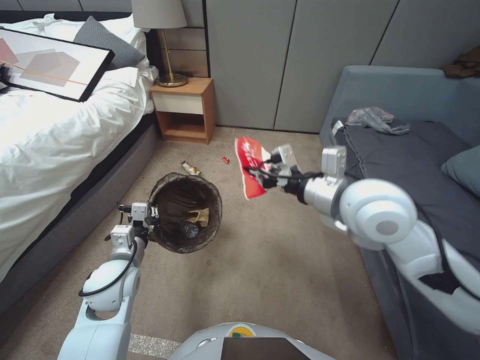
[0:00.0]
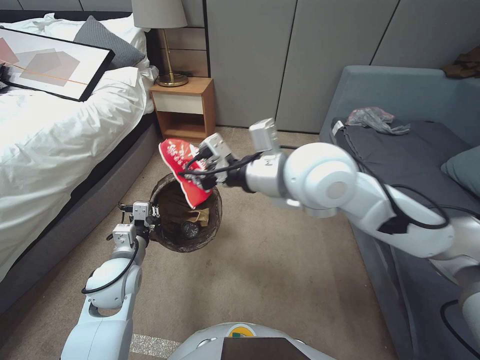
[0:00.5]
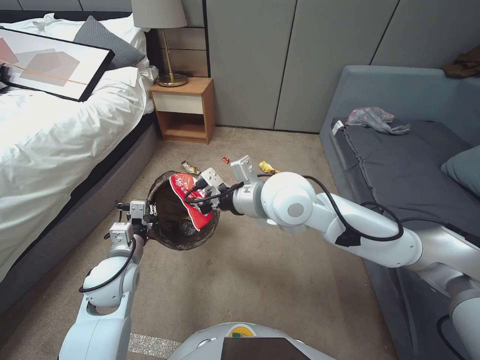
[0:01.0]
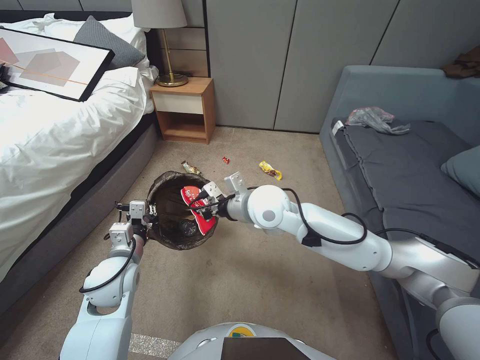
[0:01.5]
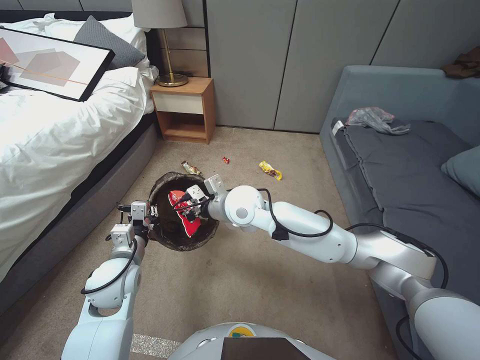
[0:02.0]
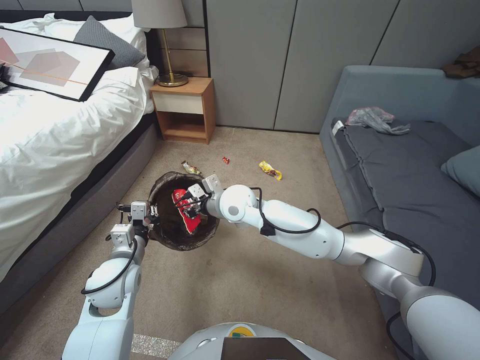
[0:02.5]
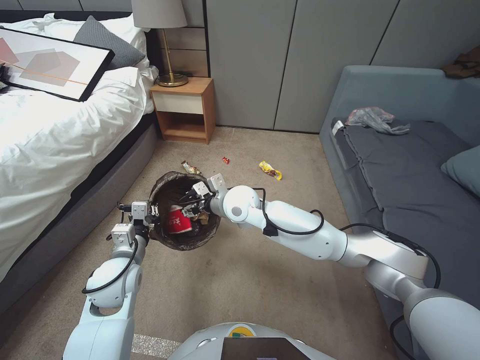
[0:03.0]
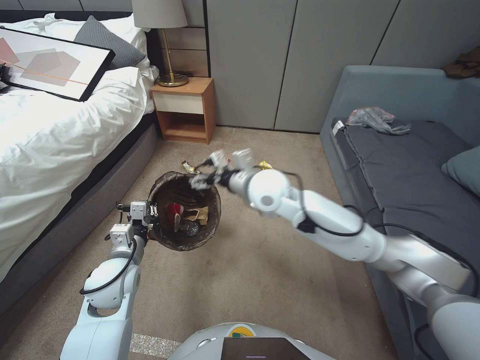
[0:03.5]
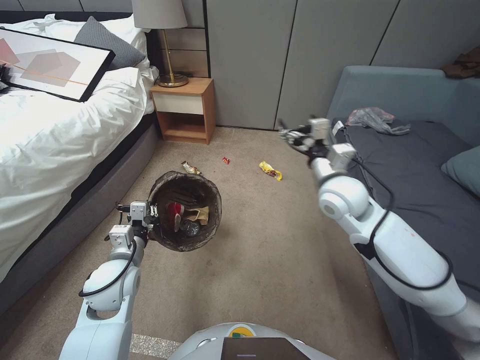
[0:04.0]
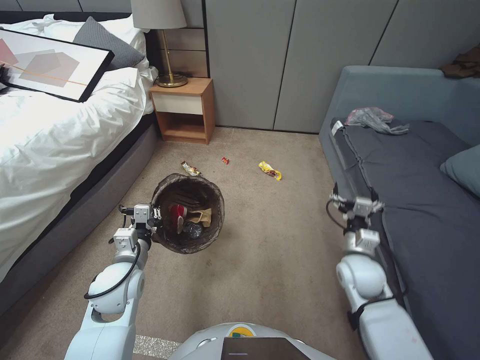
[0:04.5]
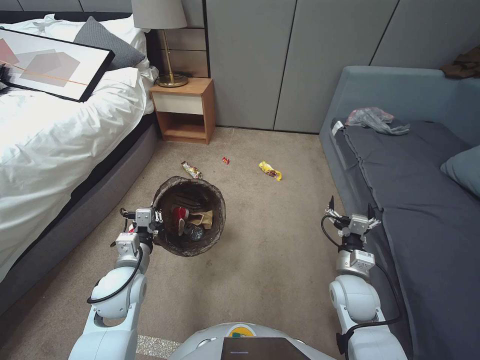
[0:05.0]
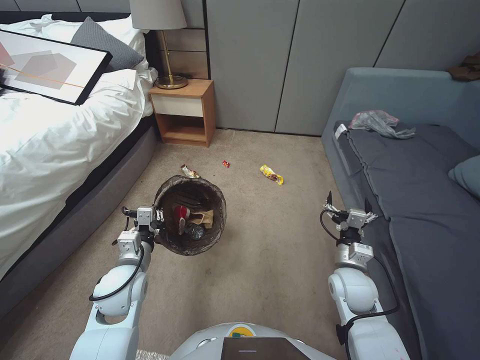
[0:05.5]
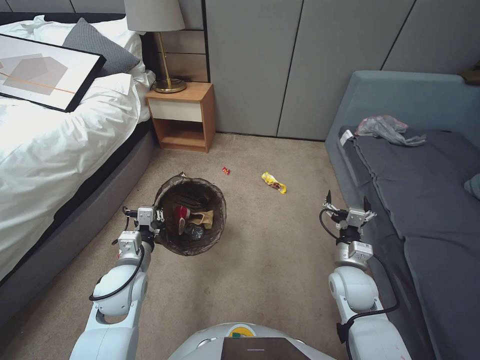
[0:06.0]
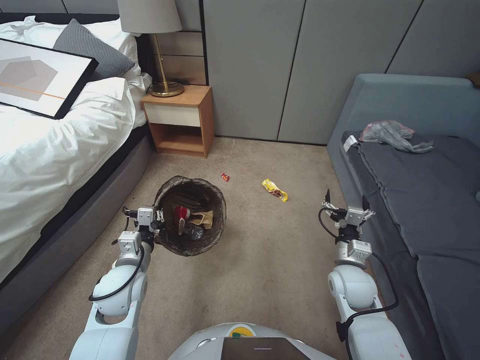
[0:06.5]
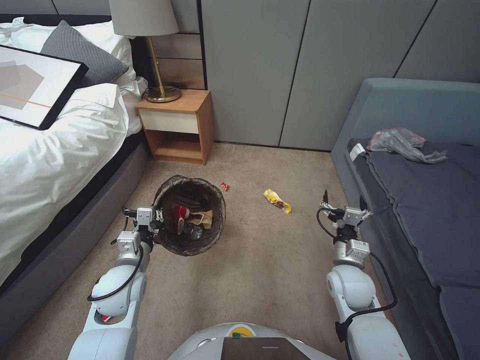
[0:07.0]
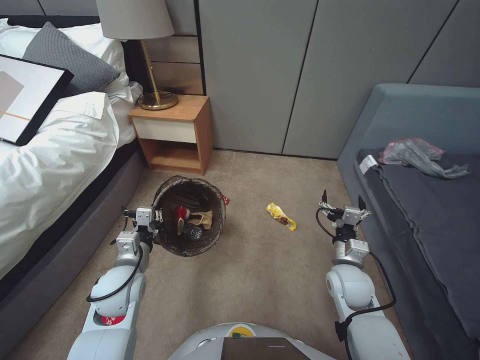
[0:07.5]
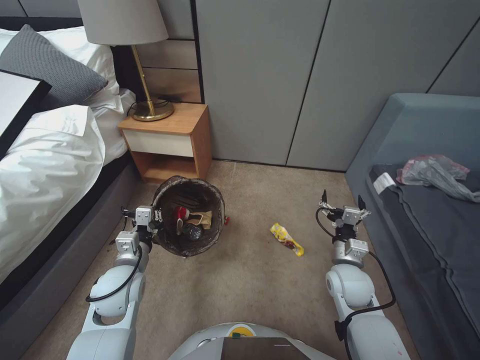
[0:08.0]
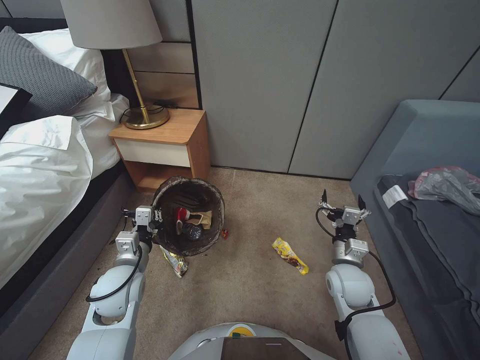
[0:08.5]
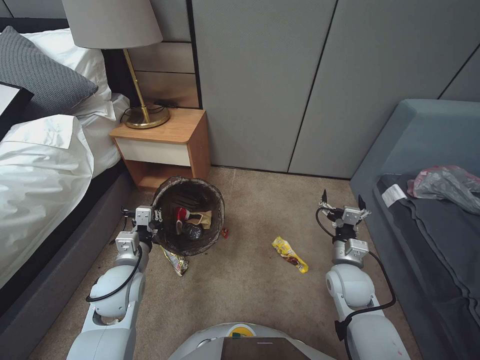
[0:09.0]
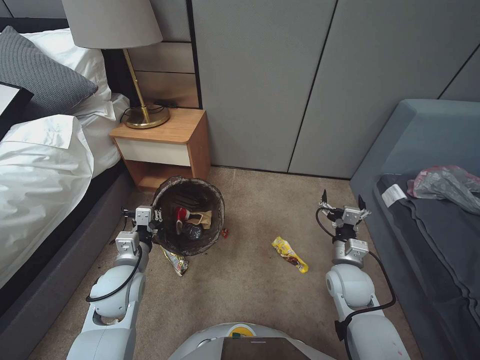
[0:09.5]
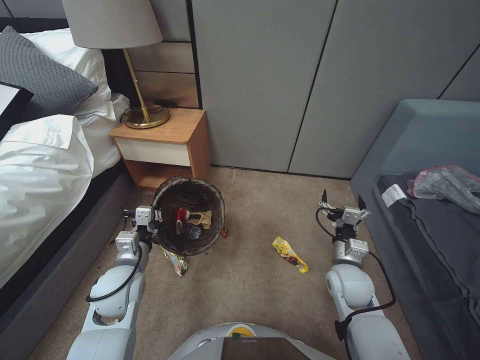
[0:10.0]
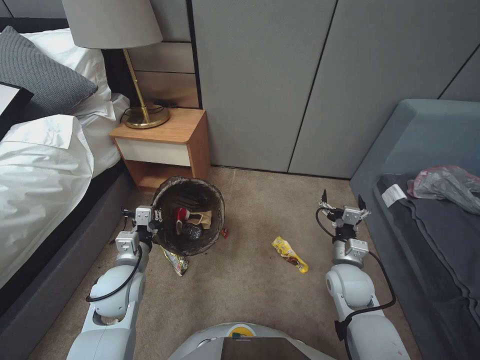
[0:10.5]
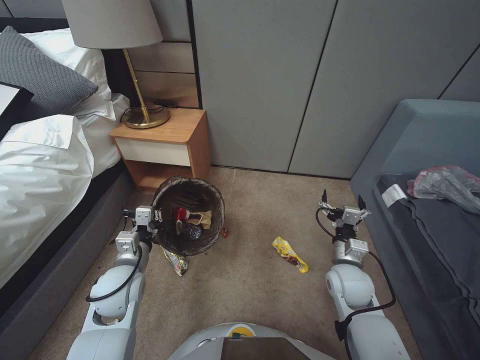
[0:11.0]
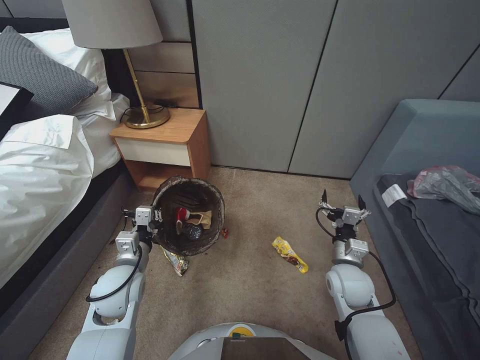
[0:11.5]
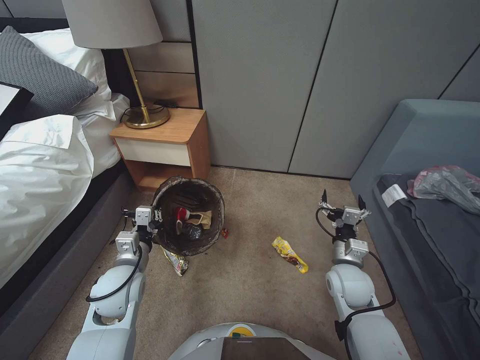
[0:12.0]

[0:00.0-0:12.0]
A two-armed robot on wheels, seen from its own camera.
Task of the whole recording: Pick up the trash bin, then pick up the garbage from the floor and place it into the trash bin.
0:00.0 to 0:02.0: The right gripper travels to the left and forward by about 20 cm.
0:02.0 to 0:04.0: The right gripper travels to the right by approximately 15 cm, and opens.
0:04.0 to 0:06.0: The right gripper goes approximately 25 cm downward, backward and to the right.
0:08.0 to 0:12.0: Neither gripper changes place.

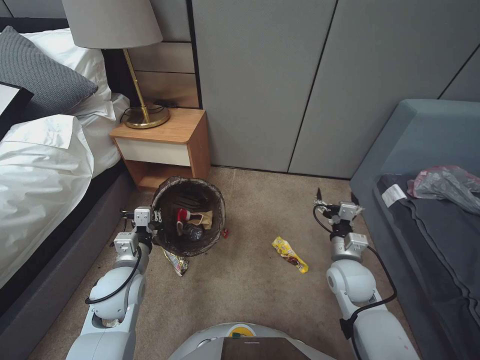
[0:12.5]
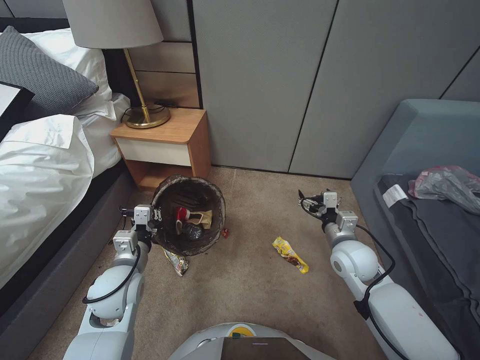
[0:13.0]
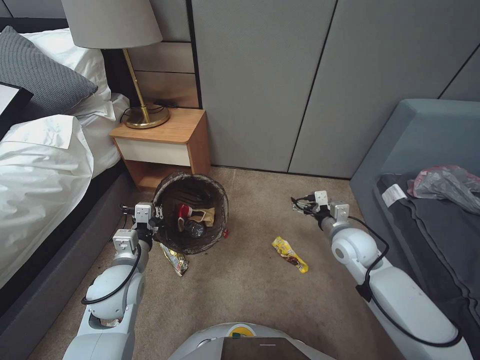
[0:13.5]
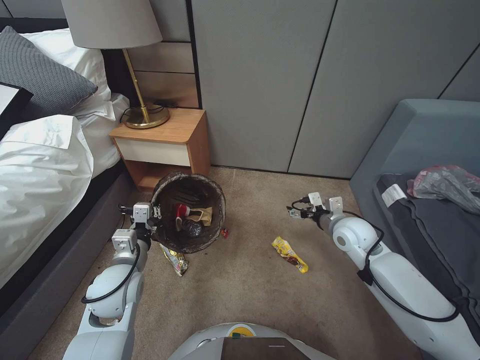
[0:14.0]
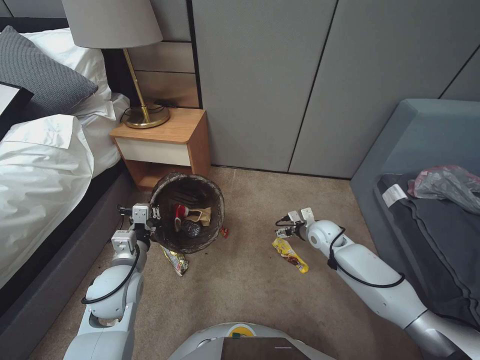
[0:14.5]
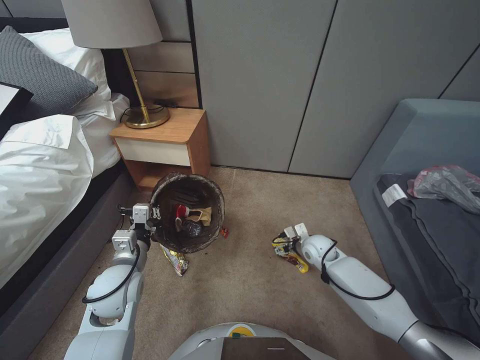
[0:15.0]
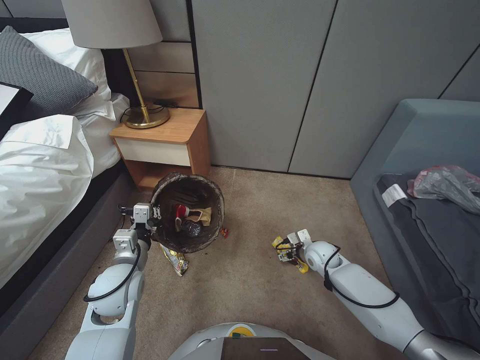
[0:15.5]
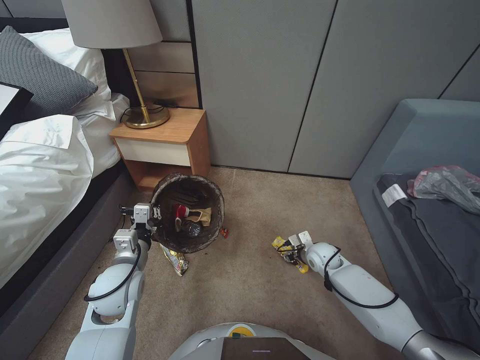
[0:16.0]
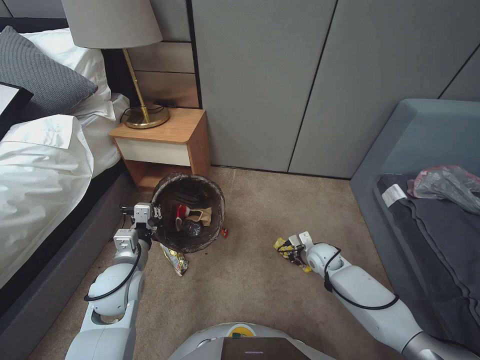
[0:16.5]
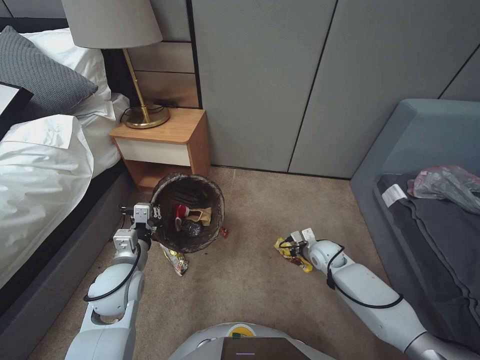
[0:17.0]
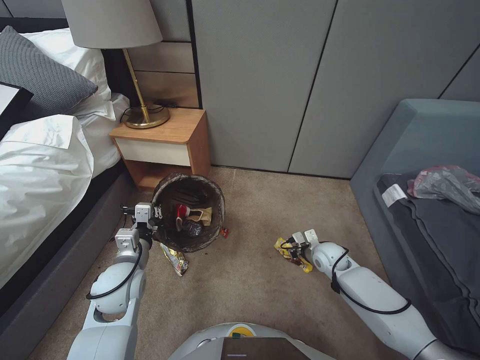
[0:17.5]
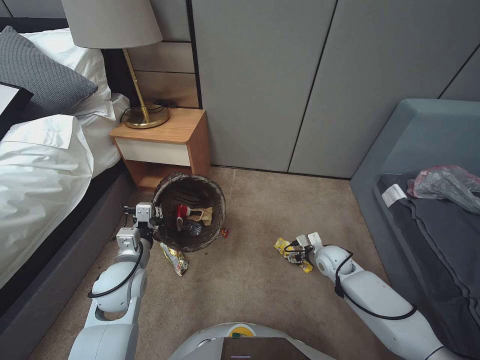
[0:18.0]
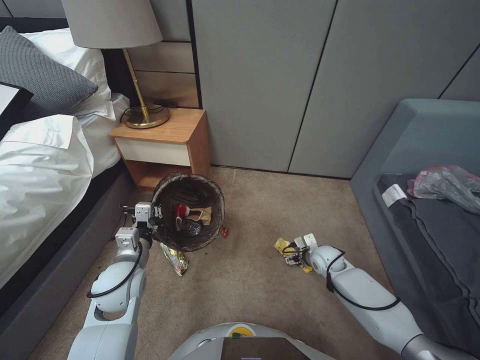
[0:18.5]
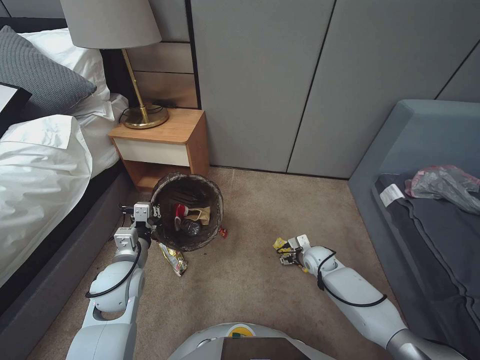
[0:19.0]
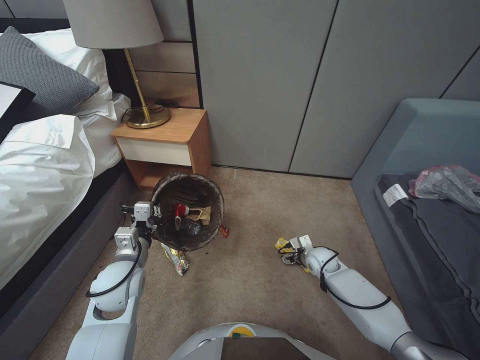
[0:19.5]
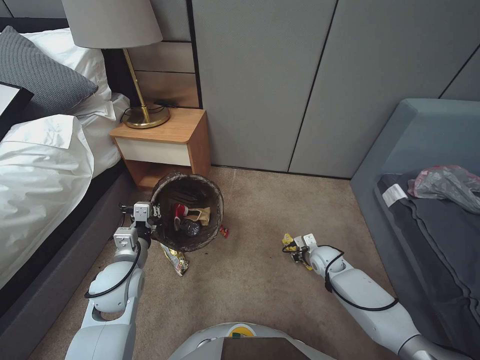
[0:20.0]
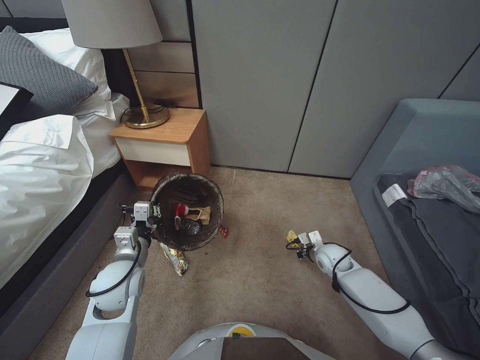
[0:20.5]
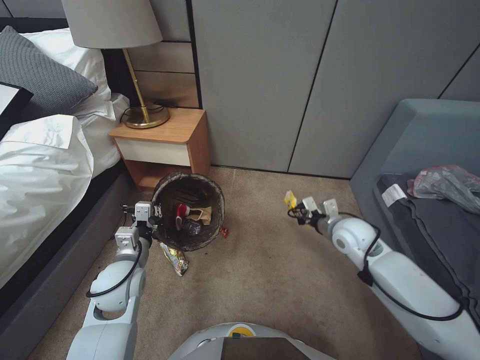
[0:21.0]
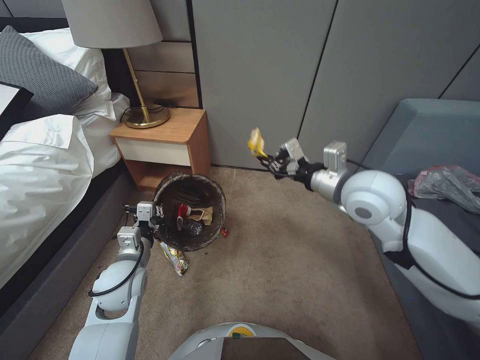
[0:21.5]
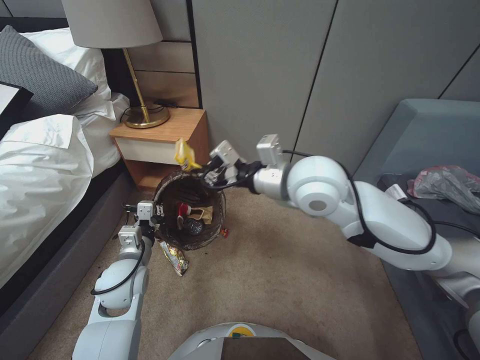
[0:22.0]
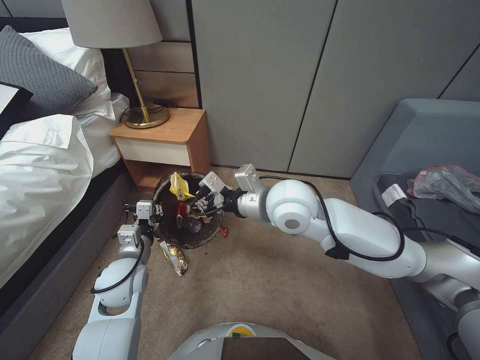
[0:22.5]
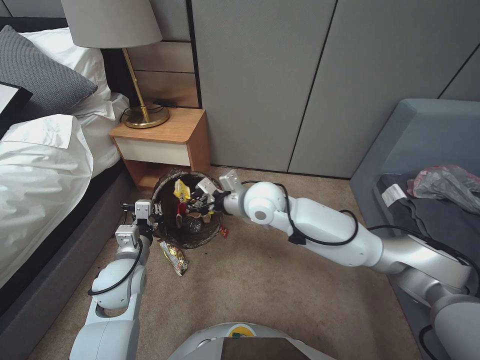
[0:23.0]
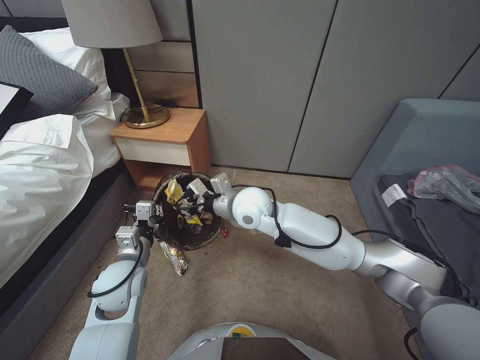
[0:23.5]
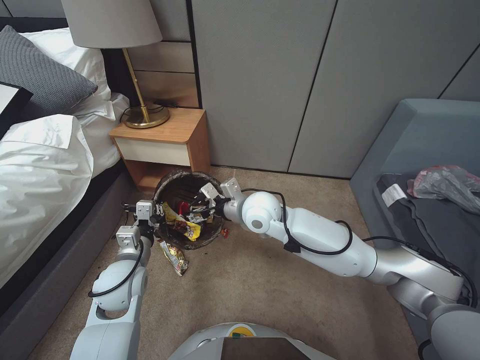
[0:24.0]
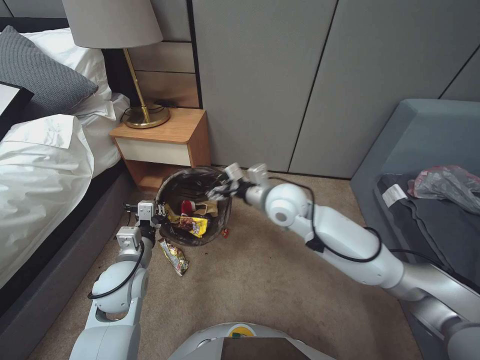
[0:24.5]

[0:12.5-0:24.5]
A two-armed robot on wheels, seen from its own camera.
Task of the whole recording: Pick up the trash bin, then pick up the garbage from the floor and place it into the trash bin.
0:12.5 to 0:14.5: The right gripper travels forward by some 15 cm.
0:14.5 to 0:16.5: The right gripper heads downward, covering some 10 cm, and closes.
0:16.5 to 0:18.5: The right gripper opens its fingers.
0:18.5 to 0:20.5: The right gripper closes.
0:20.5 to 0:22.5: The right gripper is displaced upward and to the left by roughly 40 cm.
0:22.5 to 0:24.5: The right gripper goes roughly 10 cm downward and forward, and opens up.

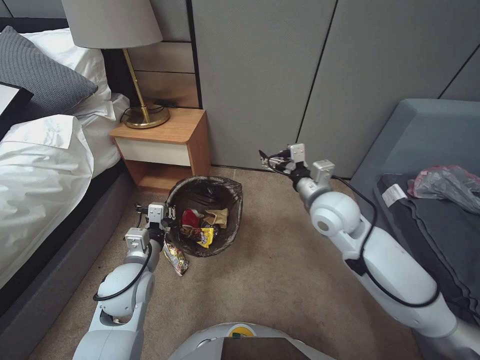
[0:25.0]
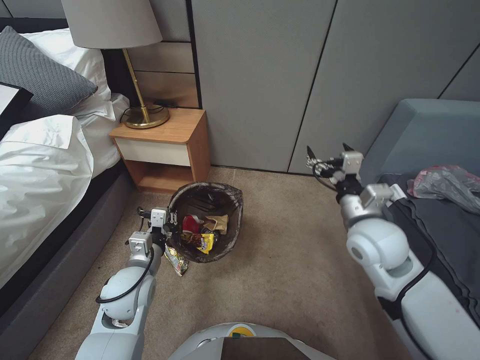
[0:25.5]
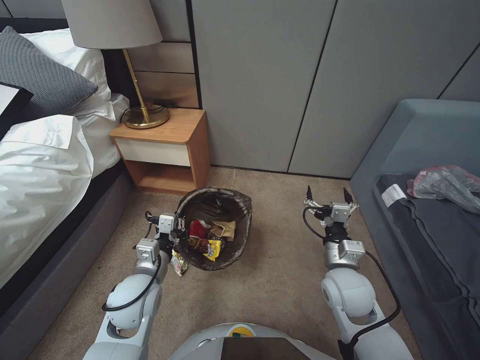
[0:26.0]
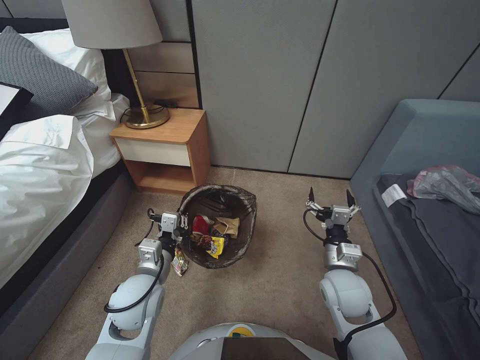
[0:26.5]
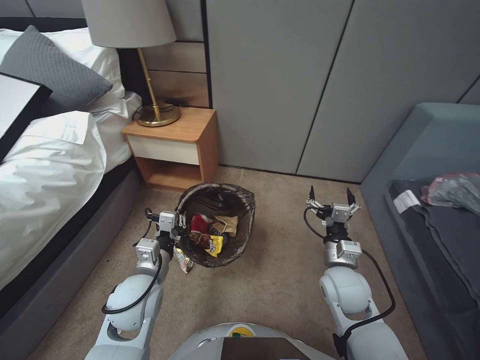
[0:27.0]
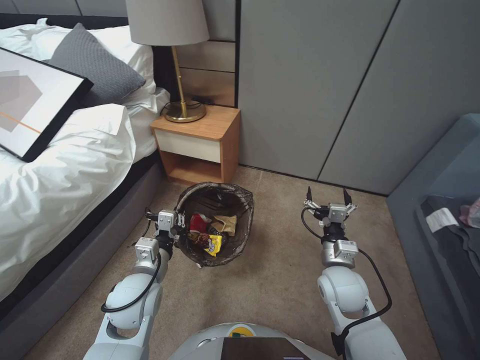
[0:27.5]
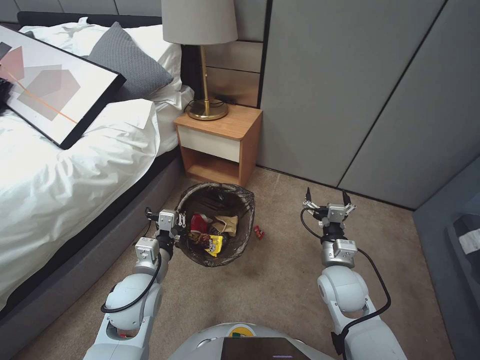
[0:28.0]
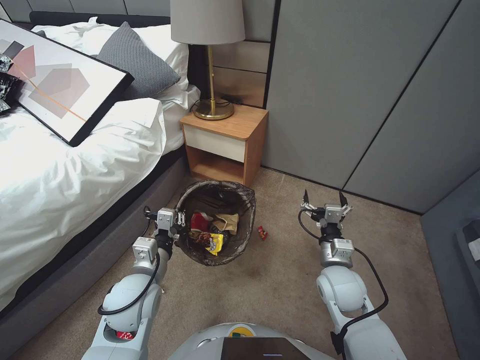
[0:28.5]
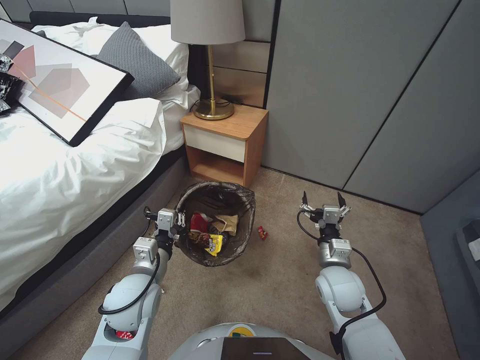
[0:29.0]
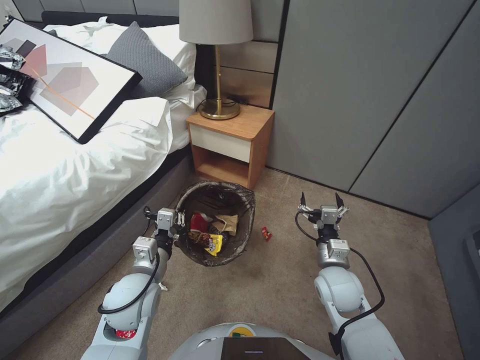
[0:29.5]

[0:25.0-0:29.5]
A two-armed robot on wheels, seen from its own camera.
Task of the whole recording: Pick up the trash bin, then pick up the garbage from the floor and place it into the trash bin.
0:25.0 to 0:27.0: The right gripper heads downward and backward, covering roughly 20 cm.
